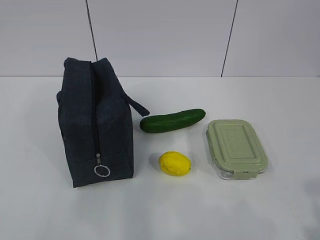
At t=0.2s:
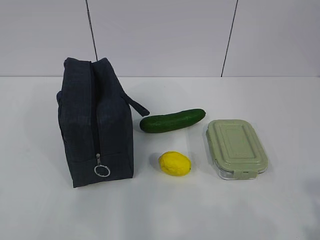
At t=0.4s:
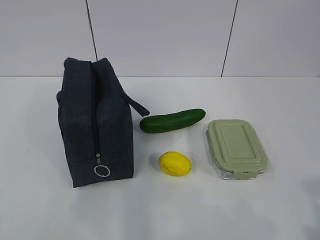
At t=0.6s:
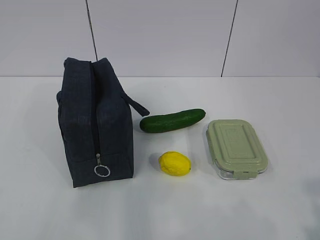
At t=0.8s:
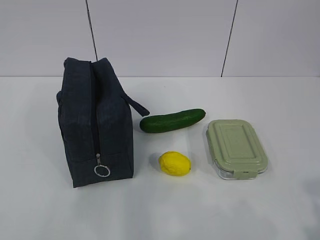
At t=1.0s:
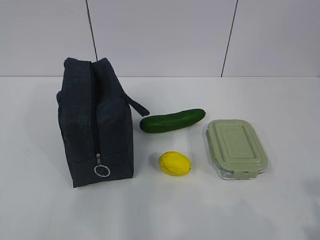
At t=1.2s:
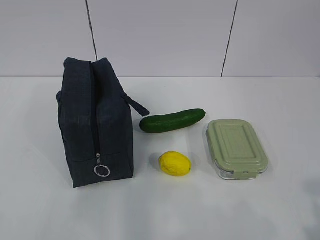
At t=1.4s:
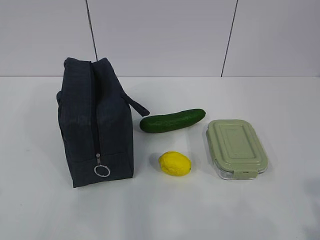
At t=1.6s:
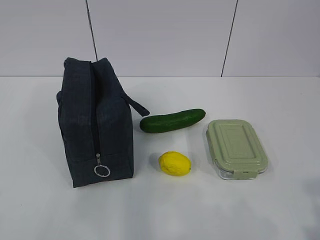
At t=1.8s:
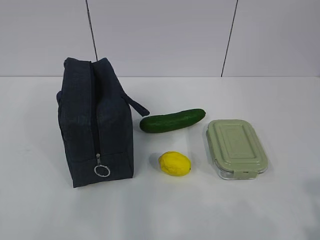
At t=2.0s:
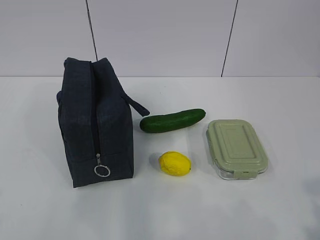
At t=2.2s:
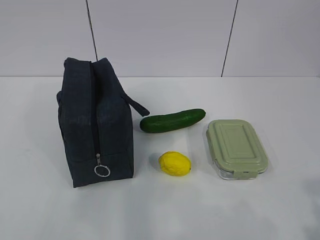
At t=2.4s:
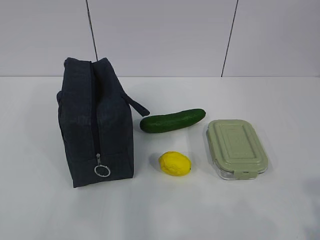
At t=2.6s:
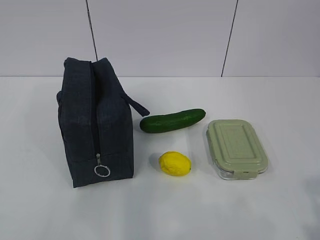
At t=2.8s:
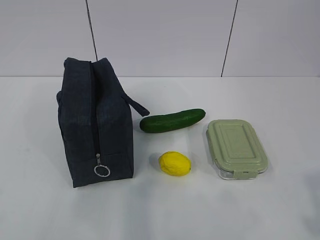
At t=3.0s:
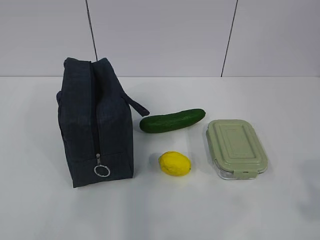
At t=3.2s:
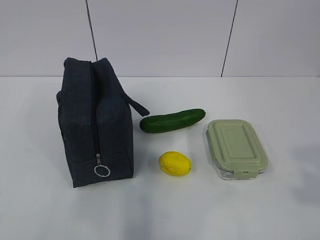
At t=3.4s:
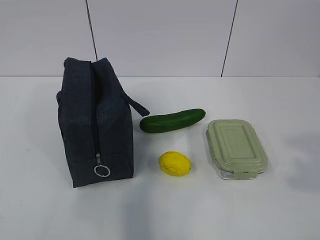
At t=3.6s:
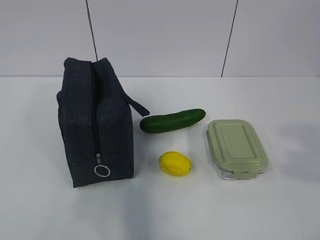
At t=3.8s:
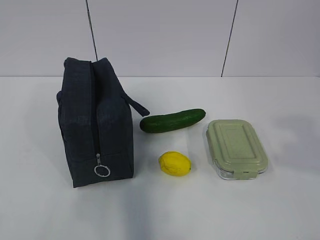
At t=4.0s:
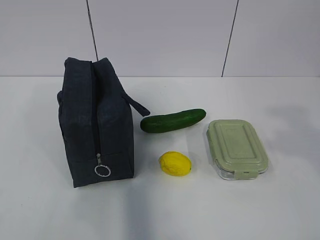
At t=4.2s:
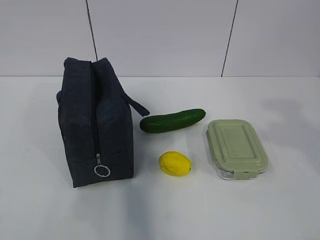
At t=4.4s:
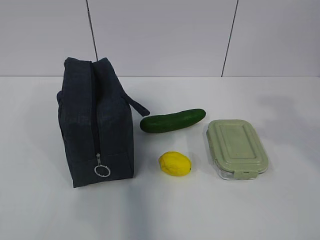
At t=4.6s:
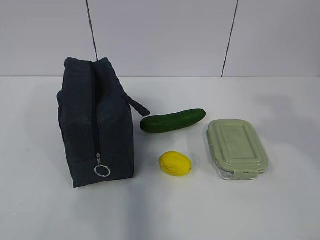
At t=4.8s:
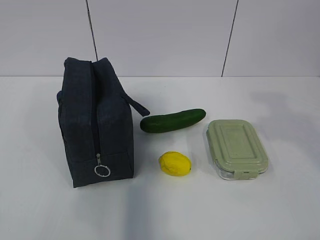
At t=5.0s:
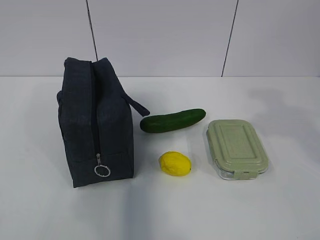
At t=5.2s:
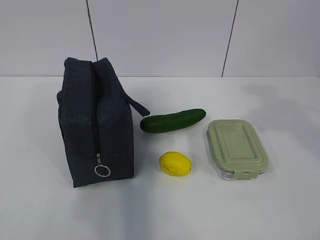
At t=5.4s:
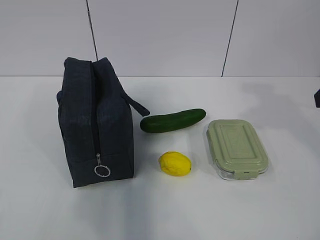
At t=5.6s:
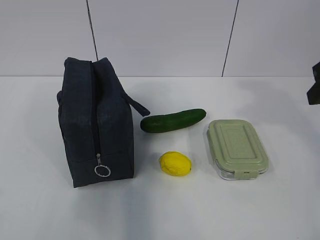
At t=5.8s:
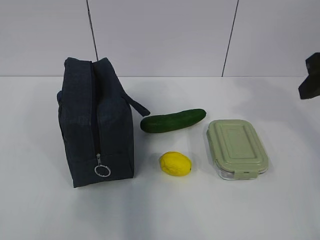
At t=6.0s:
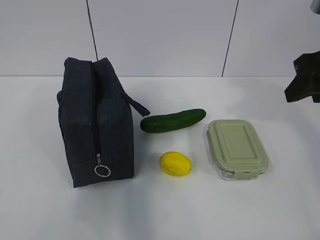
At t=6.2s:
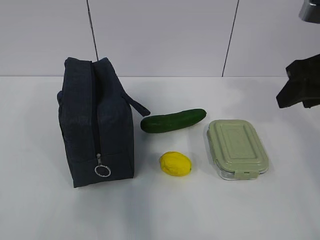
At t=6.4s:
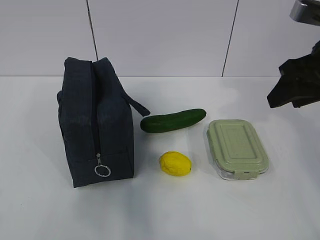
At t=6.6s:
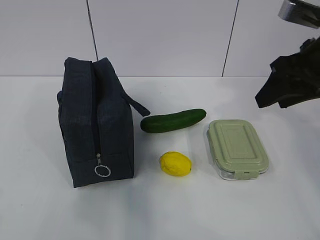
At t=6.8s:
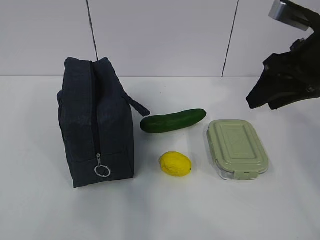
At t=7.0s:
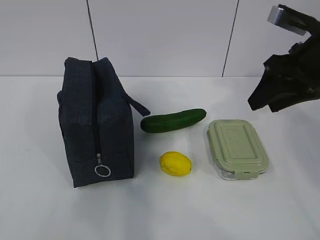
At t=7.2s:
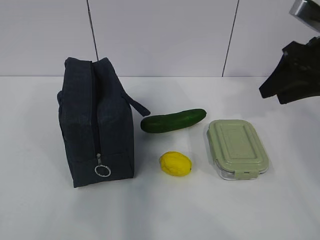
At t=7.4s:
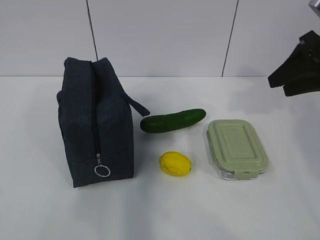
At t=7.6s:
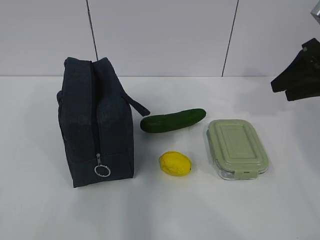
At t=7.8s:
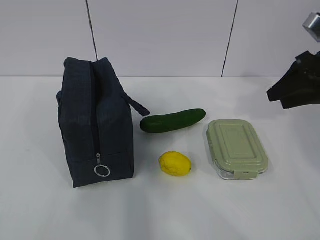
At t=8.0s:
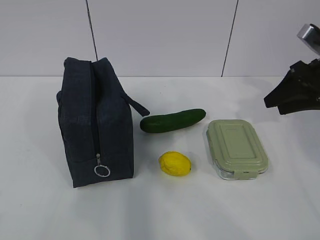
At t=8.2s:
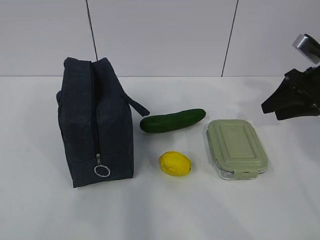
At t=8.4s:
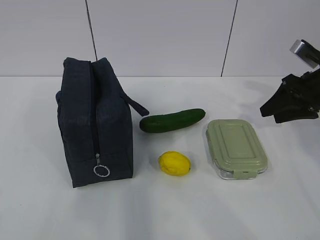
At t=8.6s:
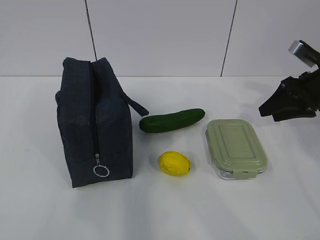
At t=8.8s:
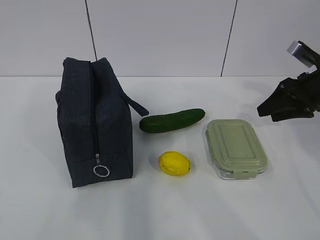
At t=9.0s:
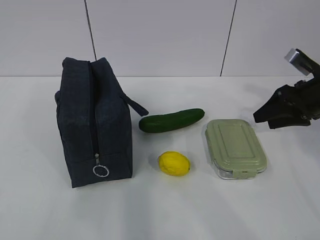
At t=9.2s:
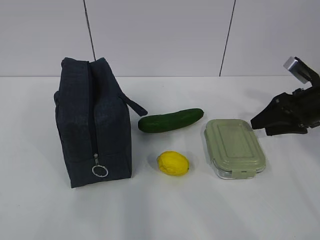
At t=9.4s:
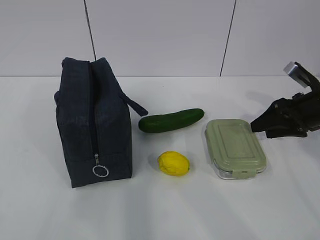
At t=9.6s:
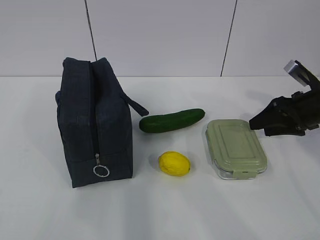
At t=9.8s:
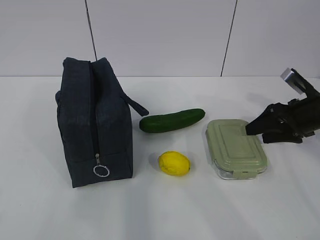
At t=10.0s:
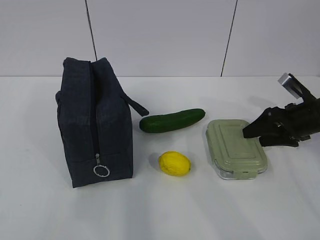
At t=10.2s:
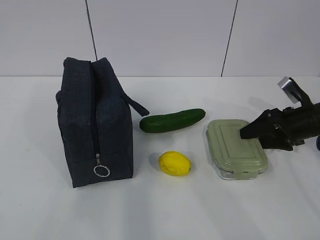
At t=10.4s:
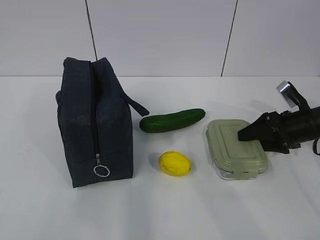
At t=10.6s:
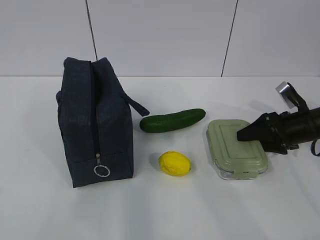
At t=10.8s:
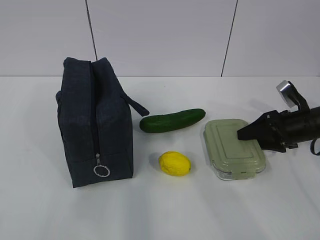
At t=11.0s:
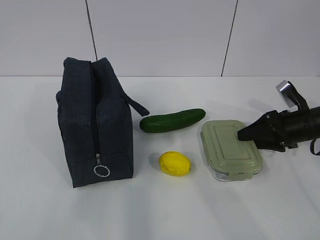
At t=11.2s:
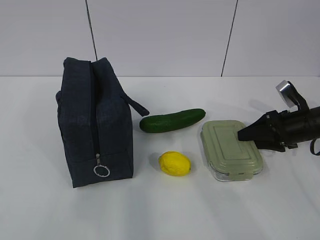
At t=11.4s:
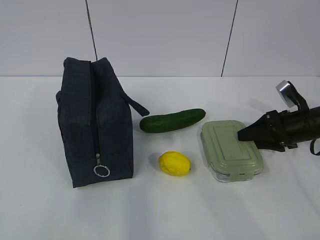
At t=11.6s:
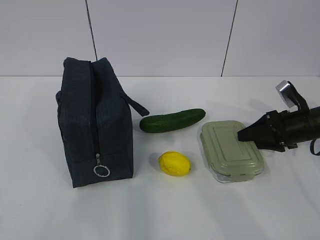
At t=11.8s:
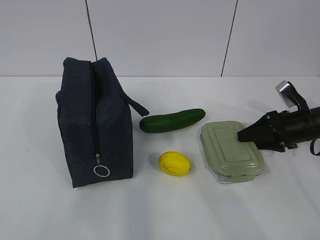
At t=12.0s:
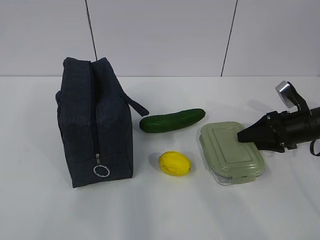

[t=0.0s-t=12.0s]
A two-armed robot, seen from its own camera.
Step, t=0.0s to t=9.0s: Grab the lunch box with your right hand.
t=3.0s to t=4.4s: The right gripper heads forward, covering about 15 cm.
t=4.4s to t=6.0s: The right gripper moves forward, roughly 15 cm.
t=6.0s to t=7.6s: The right gripper goes approximately 10 cm forward and to the right.
t=7.6s to t=9.0s: The right gripper goes some 10 cm downward.
t=9.0s to t=10.4s: The right gripper is displaced downward by approximately 10 cm.
t=10.4s to t=12.0s: The two grippers keep their place.

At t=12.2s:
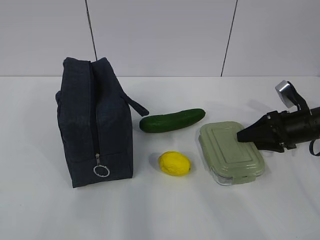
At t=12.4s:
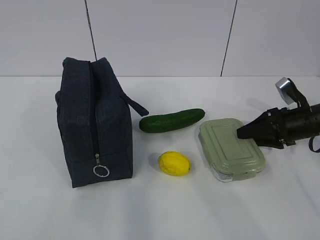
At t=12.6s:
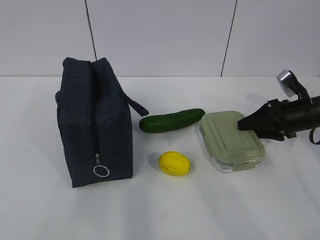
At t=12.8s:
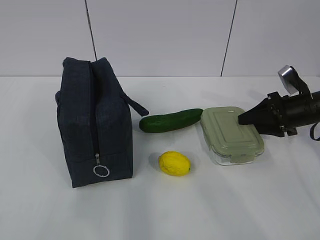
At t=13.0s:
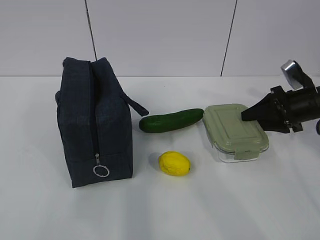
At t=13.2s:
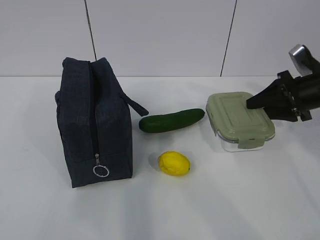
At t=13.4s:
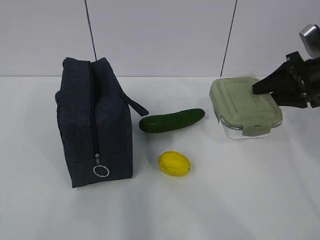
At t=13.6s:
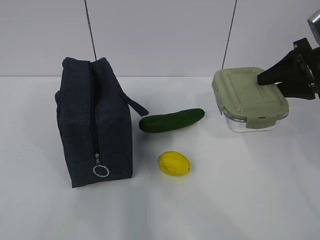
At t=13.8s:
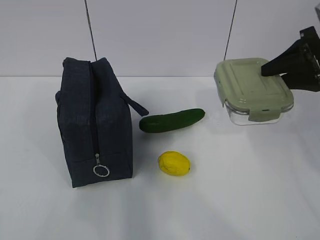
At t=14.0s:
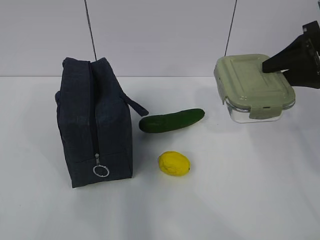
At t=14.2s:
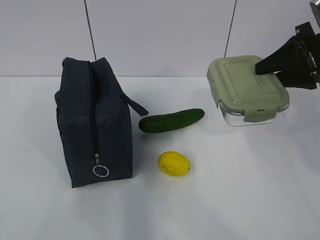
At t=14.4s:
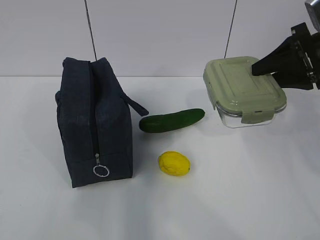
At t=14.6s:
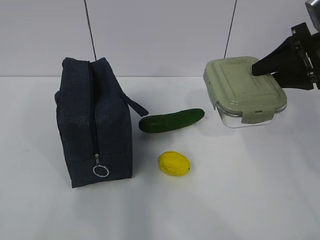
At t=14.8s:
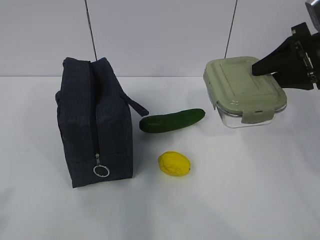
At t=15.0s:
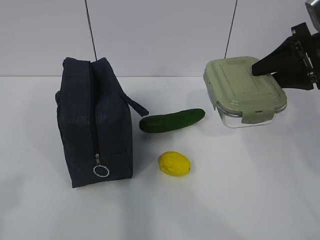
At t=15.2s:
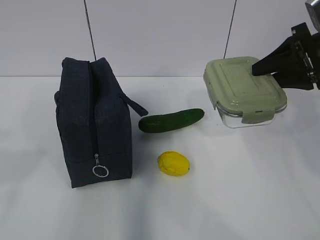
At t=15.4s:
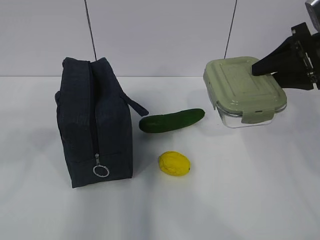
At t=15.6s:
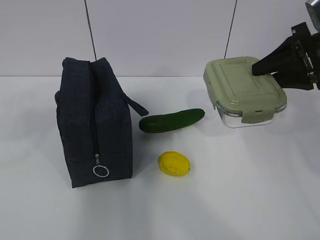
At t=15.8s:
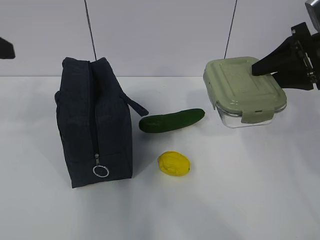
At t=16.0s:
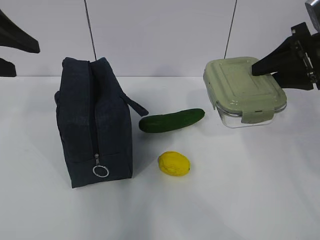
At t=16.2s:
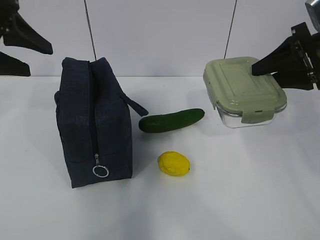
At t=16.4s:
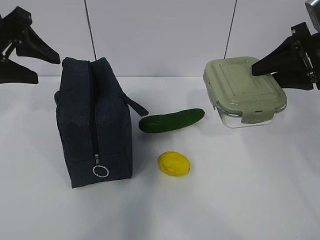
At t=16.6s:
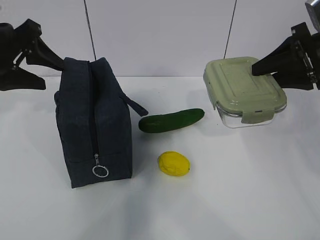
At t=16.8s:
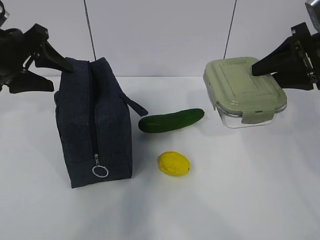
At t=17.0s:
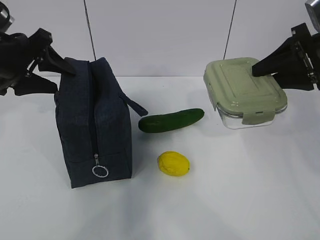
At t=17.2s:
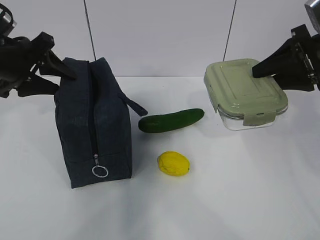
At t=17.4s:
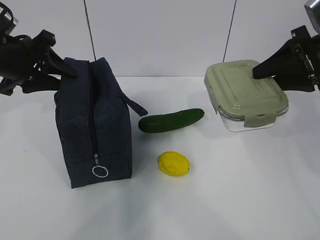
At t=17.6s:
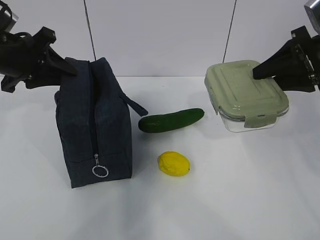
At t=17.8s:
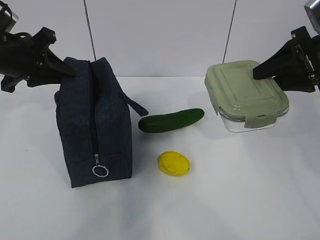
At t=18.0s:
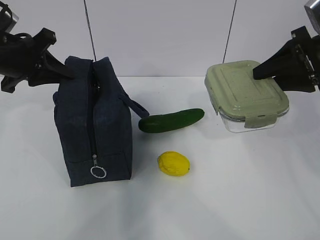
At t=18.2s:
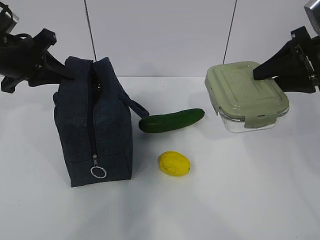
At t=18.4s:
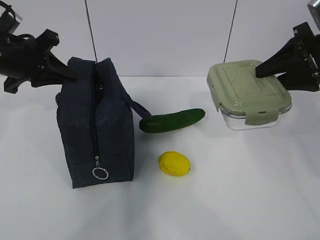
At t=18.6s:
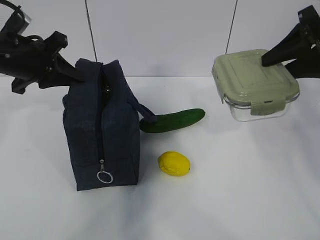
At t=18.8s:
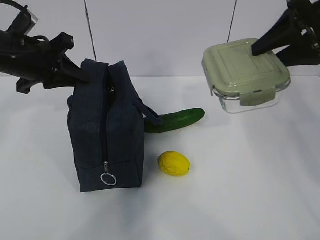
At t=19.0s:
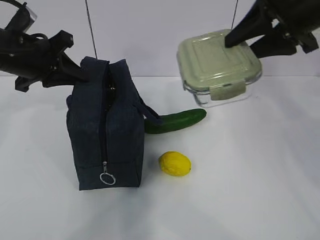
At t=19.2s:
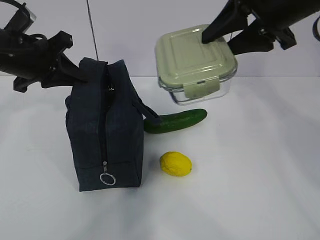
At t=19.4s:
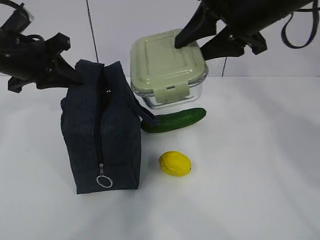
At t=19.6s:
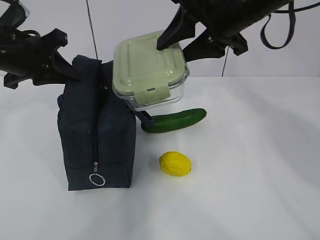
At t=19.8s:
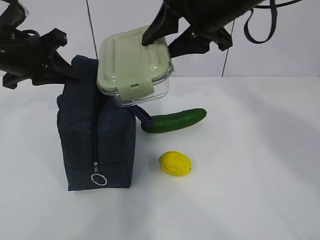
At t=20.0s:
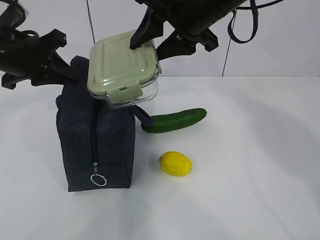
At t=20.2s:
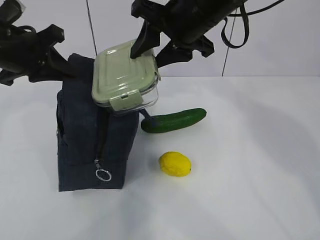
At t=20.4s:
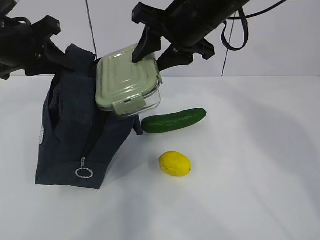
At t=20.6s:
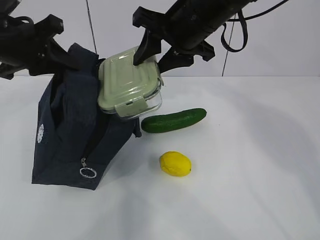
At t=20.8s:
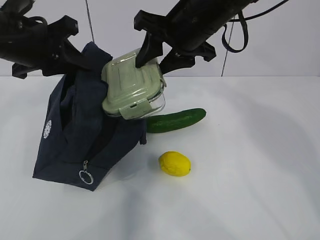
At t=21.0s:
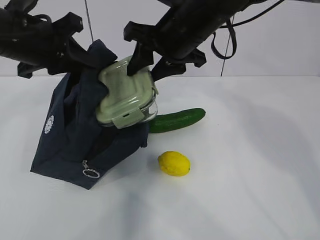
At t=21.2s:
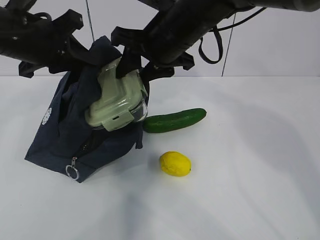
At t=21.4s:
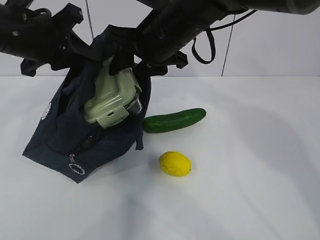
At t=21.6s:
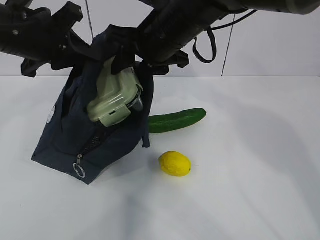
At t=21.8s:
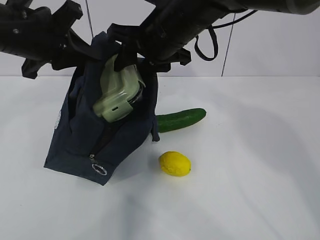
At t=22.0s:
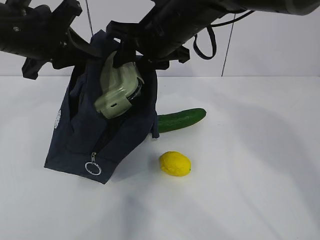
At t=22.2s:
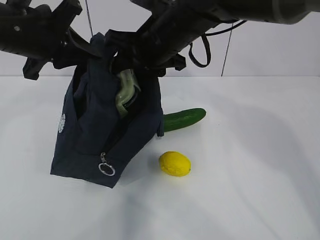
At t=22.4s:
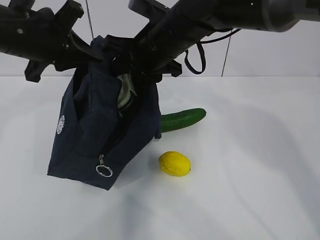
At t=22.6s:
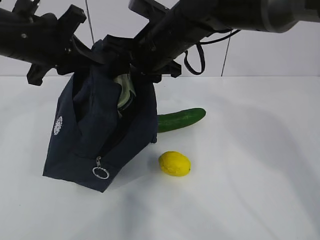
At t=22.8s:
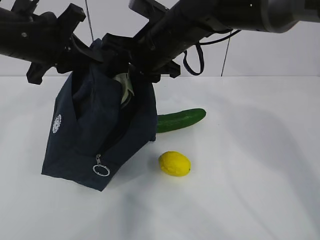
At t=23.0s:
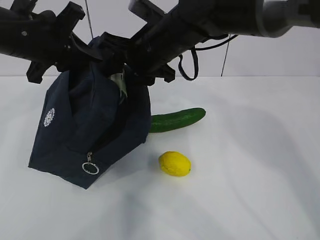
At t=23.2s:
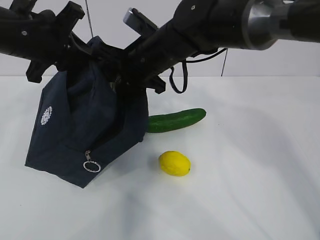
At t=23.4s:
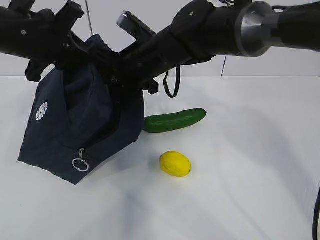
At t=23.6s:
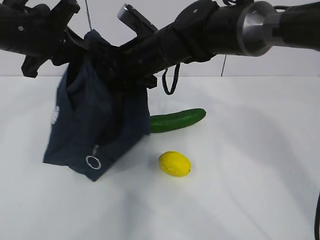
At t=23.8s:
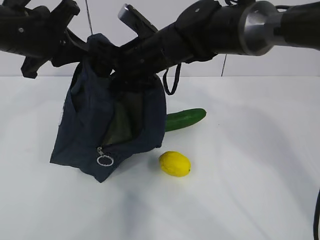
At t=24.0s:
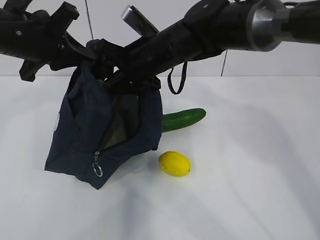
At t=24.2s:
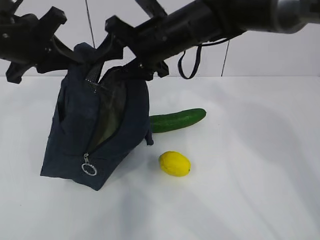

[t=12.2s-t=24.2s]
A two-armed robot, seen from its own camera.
Step, t=12.2s to t=16.6s: Grab the lunch bag with your left hand.
Step, t=16.8s to t=19.8s: Place it into the bag with your right hand.
Step, t=20.0s to t=23.6s: Grab the cucumber with your right hand.
t=12.2s to t=13.8s: The right gripper moves upward, some 15 cm.
t=13.8s to t=15.2s: The left gripper heads forward, covering some 5 cm.
t=15.2s to t=16.6s: The left gripper shifts about 30 cm forward.
t=16.6s to t=18.2s: The left gripper closes.
t=18.2s to t=19.8s: The right gripper shifts approximately 20 cm to the left.
t=19.8s to t=21.2s: The right gripper shifts about 5 cm to the left.
t=21.2s to t=22.6s: The grippers stay close to where they were, moving slightly.
